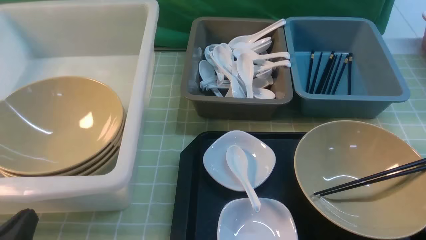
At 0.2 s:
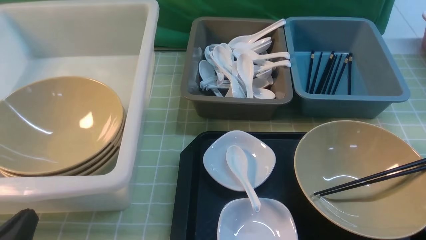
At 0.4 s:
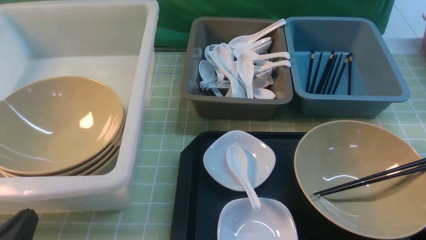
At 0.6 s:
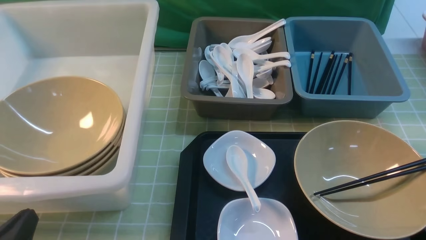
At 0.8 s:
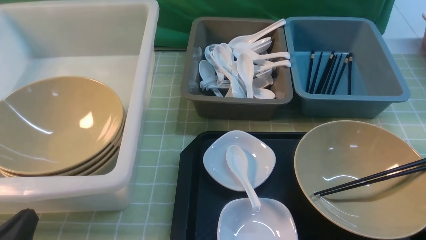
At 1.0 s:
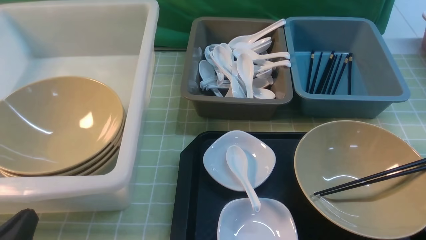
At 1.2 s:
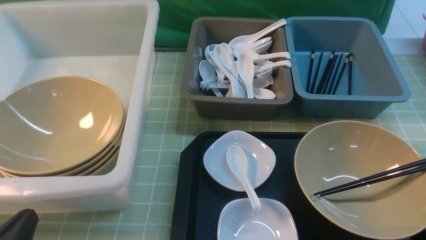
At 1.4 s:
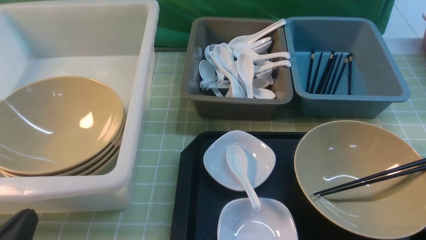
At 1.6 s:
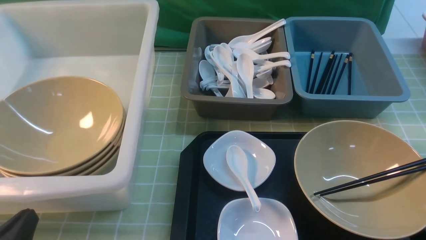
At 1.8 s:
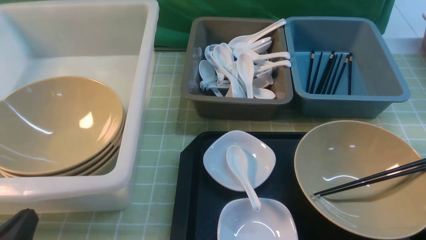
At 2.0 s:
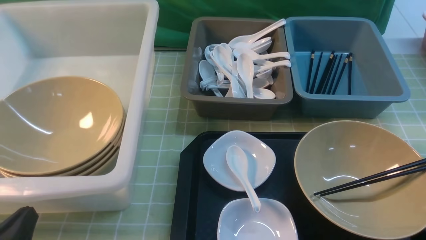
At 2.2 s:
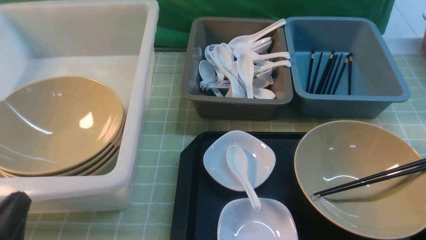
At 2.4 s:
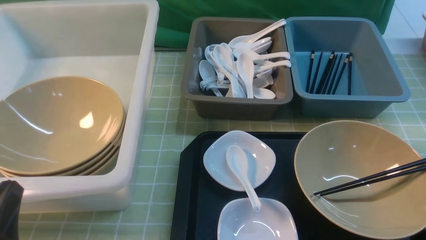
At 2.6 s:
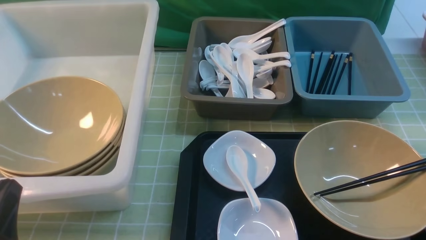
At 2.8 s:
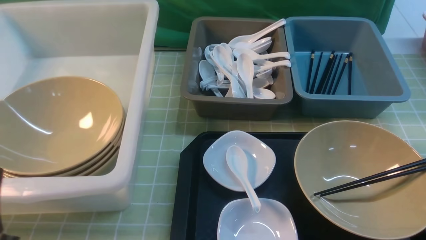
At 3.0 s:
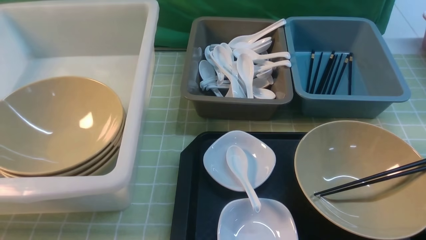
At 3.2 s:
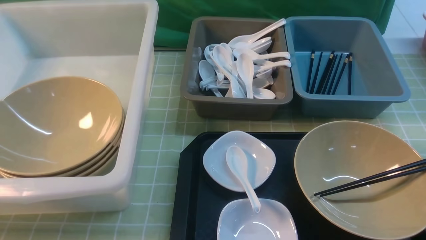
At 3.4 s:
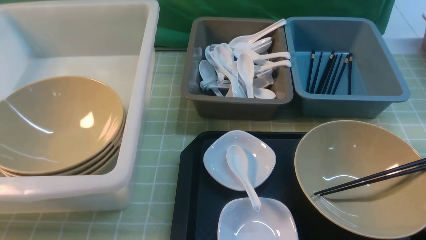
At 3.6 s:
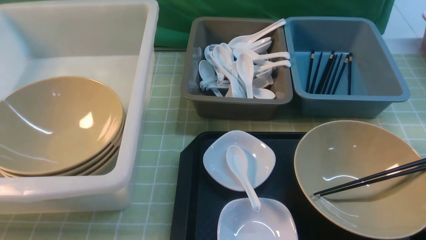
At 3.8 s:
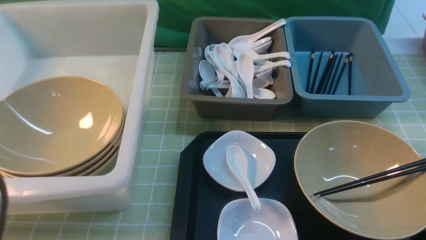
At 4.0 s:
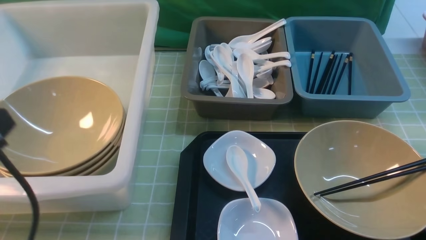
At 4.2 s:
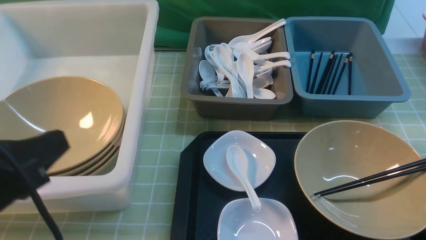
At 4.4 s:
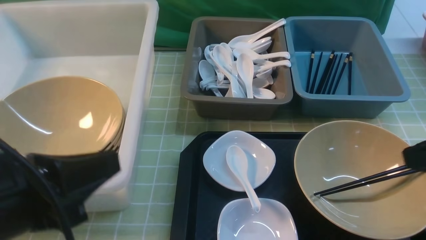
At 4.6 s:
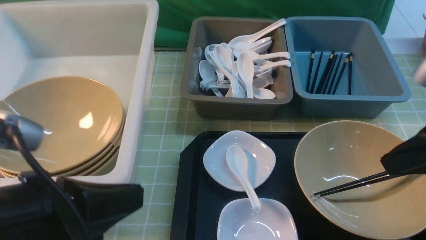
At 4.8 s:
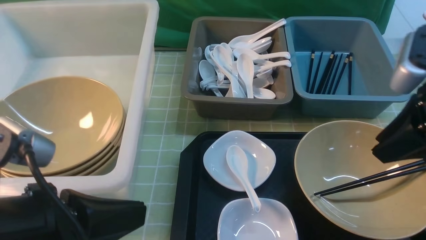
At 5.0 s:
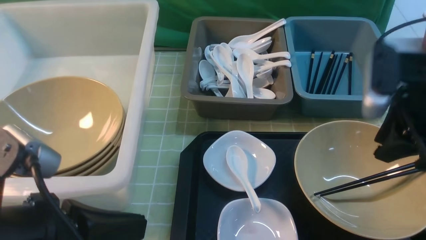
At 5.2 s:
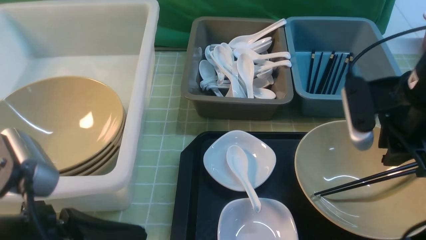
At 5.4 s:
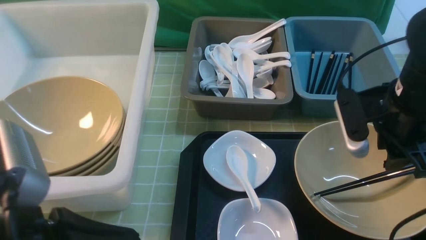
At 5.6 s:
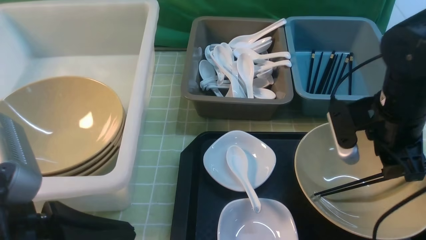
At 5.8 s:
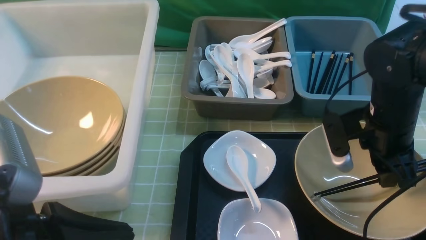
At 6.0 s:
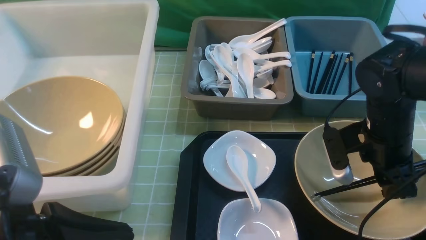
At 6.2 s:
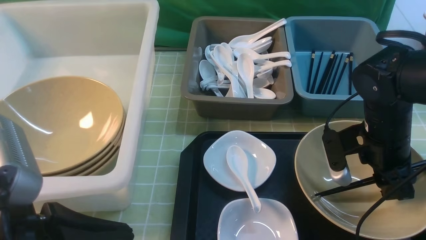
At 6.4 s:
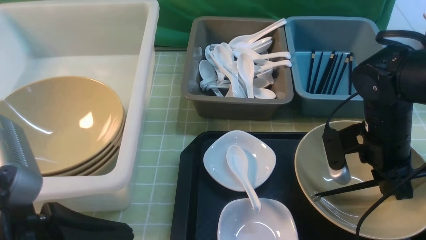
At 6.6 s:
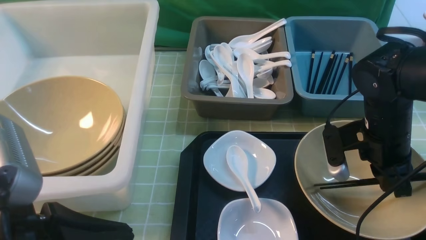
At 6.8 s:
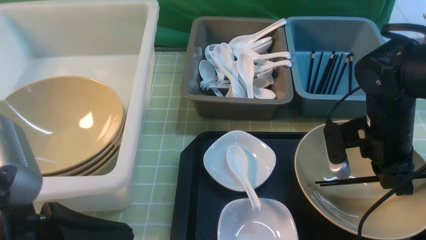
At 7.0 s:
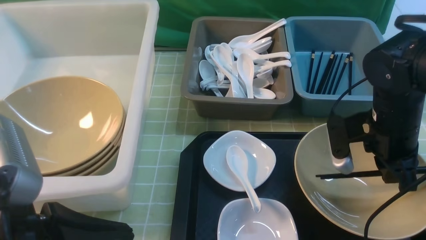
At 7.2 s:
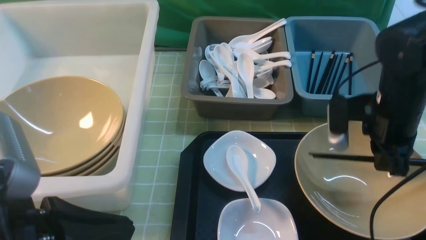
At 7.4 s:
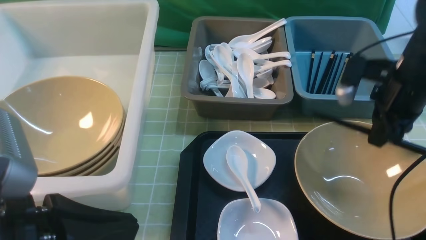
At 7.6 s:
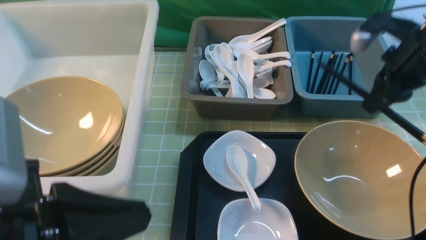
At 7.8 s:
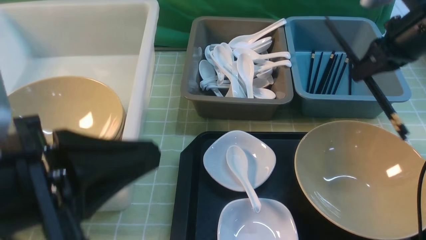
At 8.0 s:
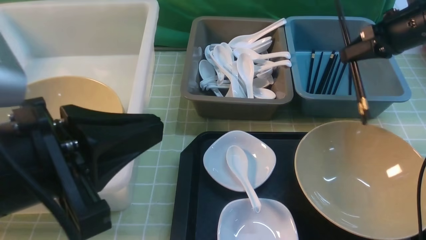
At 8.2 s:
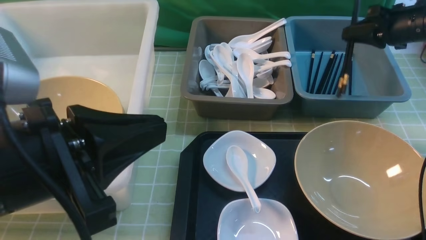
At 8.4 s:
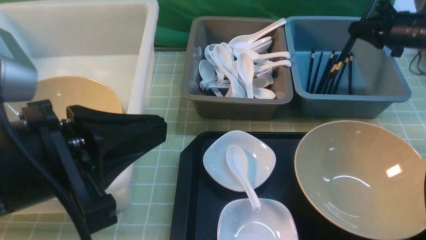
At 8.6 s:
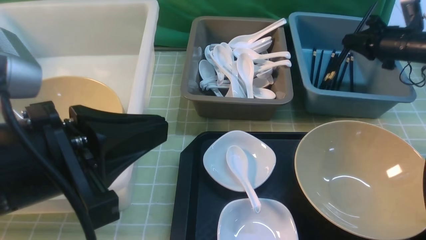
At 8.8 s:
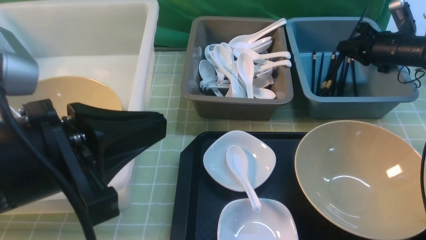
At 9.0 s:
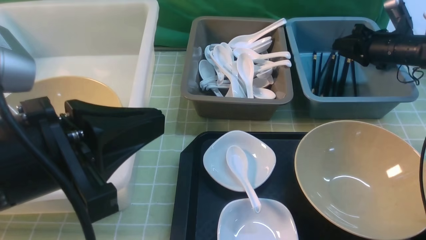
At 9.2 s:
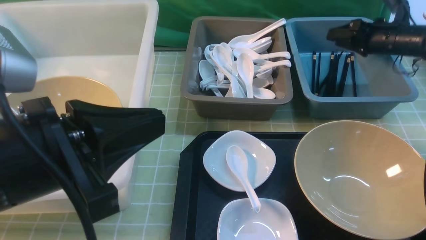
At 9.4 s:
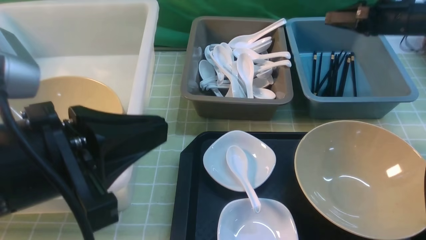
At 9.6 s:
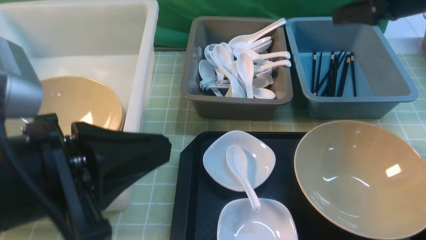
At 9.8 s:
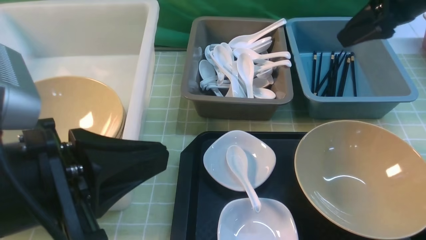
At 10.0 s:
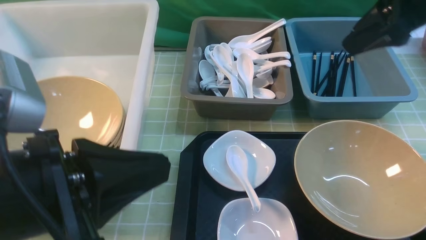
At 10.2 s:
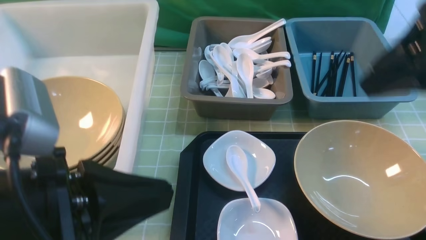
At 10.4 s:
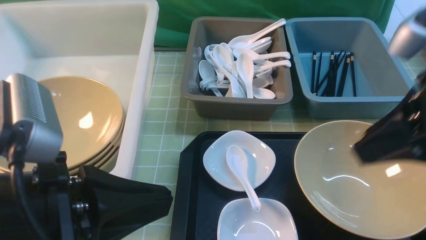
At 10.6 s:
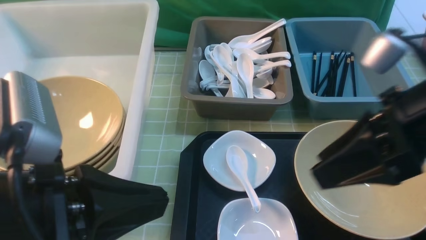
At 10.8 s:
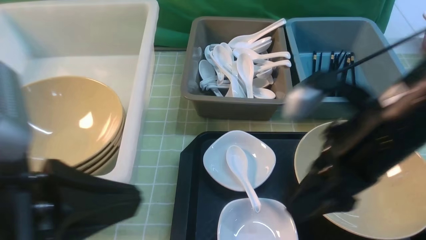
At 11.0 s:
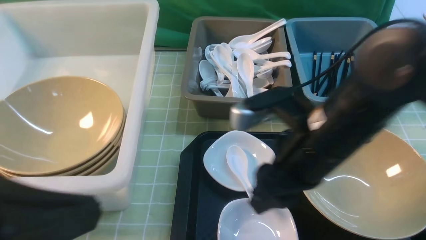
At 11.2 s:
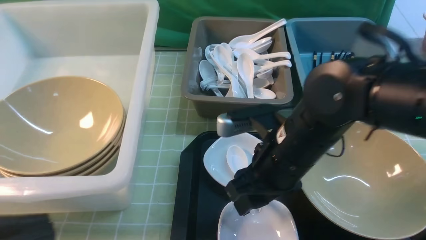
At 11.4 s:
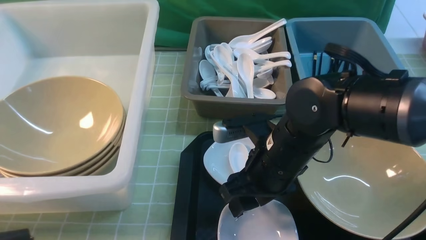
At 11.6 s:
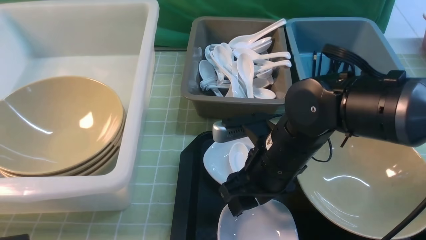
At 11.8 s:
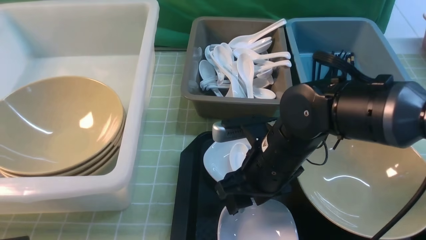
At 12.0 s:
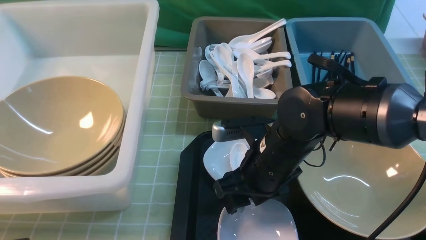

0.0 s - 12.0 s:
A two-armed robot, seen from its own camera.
Task of the whole recording: on green table put chopsticks spoon bowls plates into blue grey white boxes.
Step, 0.0 s - 7.8 s: use the right arm to grab the chopsticks.
Step, 8.0 s - 9.2 s: use the right arm to put the chopsticks into the small storage box on the right.
0.0 s - 1.6 s: Both grippers stay about where they are.
1.6 s - 3.0 s: The left gripper moves upward, roughly 10 cm.
3.0 s - 4.4 s: The left gripper heads upward, to the right and forward, covering some 10 cm.
4.4 s - 6.0 s: The right gripper heads downward, forward and to the left, covering about 20 cm.
6.0 s - 7.6 s: The right gripper is displaced upward, forward and to the right by about 15 cm, and closes its fingers.
7.6 s - 9.0 s: The right gripper goes roughly 20 cm forward, downward and to the right, and opens its fingers.
9.0 s - 10.4 s: The right gripper goes some 35 cm backward, upward and to the left.
10.4 s - 12.0 s: The right gripper moves downward and to the left, roughly 25 cm. The left gripper travels backward and to the left by approximately 10 cm.

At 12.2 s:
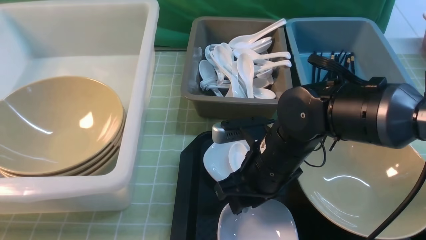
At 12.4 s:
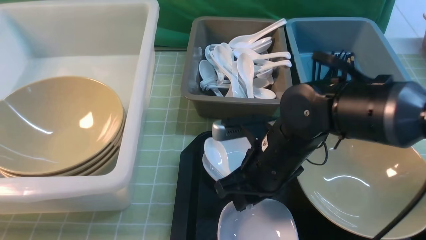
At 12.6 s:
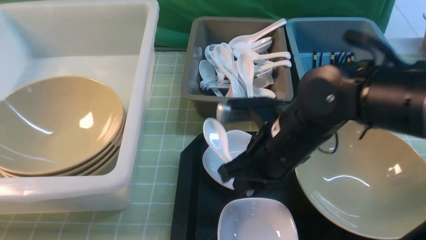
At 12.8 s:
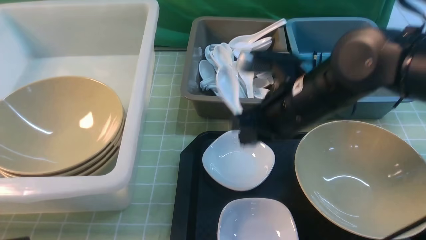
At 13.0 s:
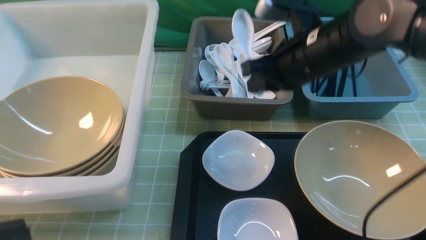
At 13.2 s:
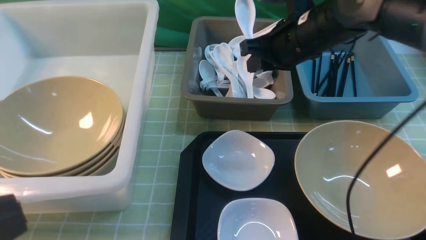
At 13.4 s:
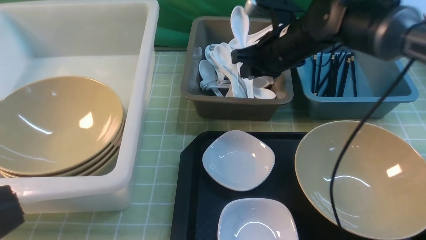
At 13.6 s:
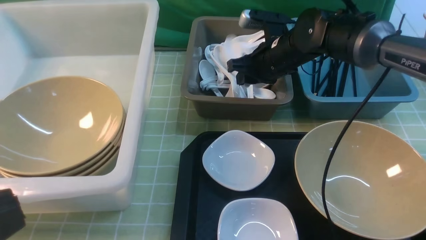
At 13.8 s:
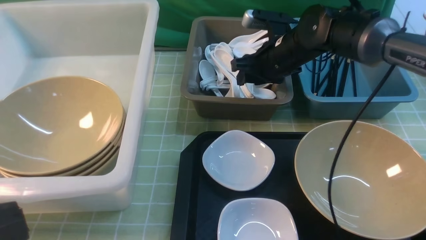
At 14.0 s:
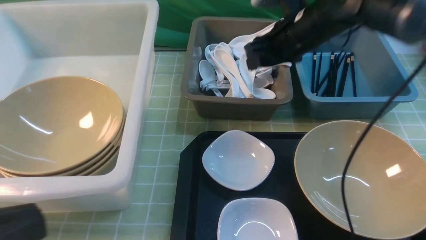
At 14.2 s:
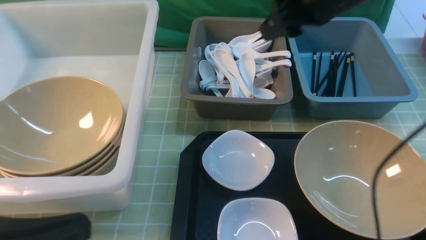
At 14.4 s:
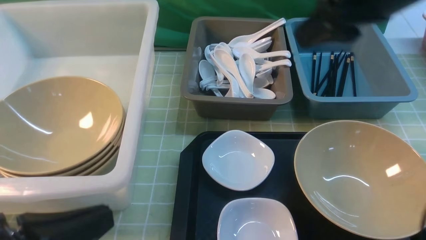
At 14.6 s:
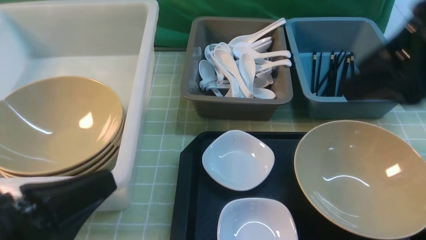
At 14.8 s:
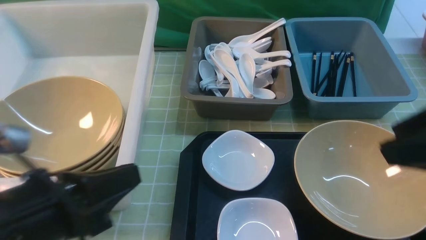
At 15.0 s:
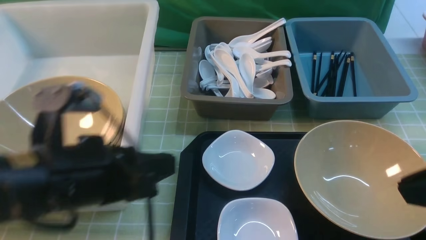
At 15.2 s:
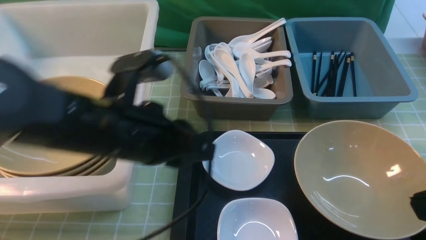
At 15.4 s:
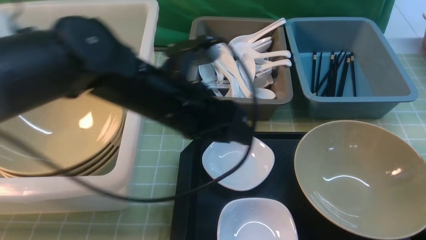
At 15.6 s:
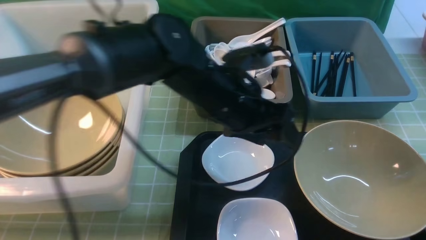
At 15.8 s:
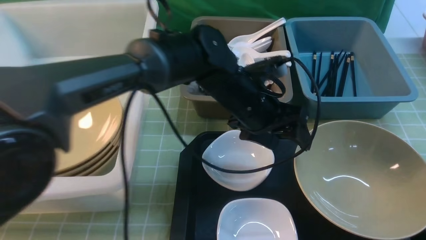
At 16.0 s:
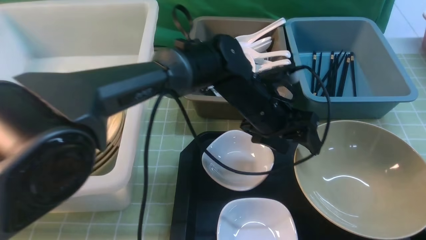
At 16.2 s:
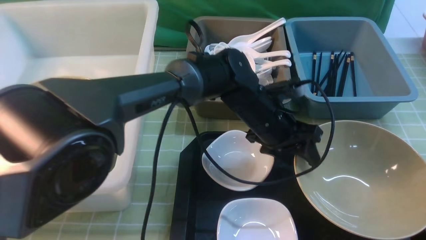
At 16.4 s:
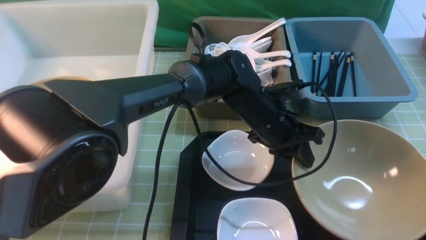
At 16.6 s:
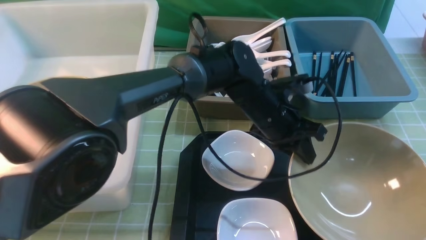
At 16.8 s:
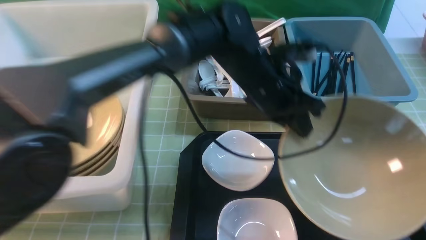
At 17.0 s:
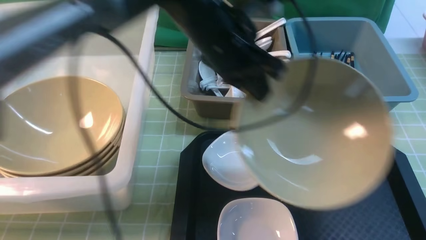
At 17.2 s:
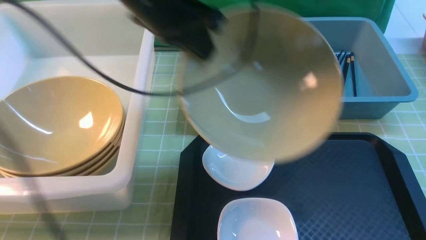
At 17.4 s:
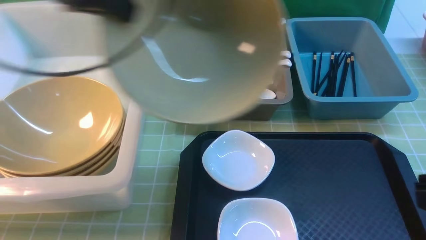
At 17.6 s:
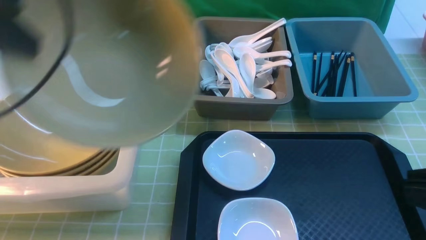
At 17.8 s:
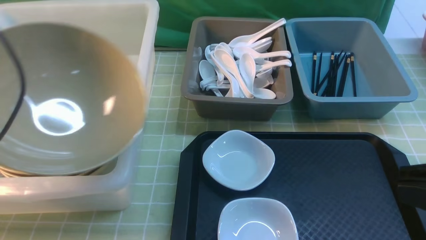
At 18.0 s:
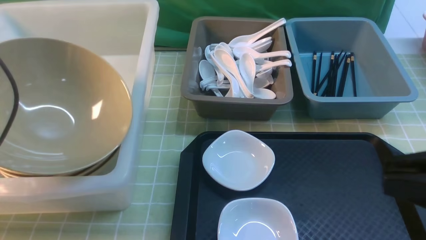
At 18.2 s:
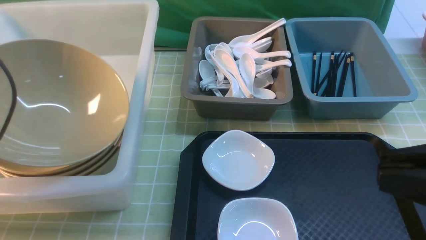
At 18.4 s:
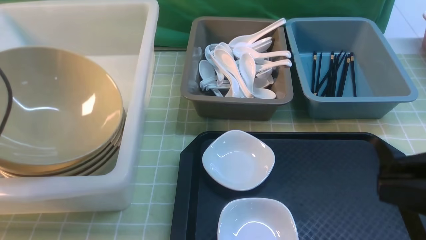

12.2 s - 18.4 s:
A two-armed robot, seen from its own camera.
Task of the whole recording: on green table put chopsticks spoon bowls plates into blue grey white boxes.
Step, 12.8 s - 14.2 s: use the right arm to put the soup spoon into the small storage box in the middle.
Step, 14.4 s - 16.8 s: use the left arm to grab the yellow noodle bowl on the left.
12.2 s - 13.8 s: The right gripper goes roughly 20 cm forward, and closes and opens again.
13.8 s - 15.4 s: The right gripper goes approximately 35 cm backward, and closes its fingers, while the left gripper travels forward and to the right by about 30 cm, and opens.
15.4 s - 16.8 s: The left gripper goes some 10 cm to the right and forward, and closes up.
16.8 s - 18.4 s: The right gripper shifts by approximately 5 cm. Meanwhile the left gripper is displaced to the left by some 40 cm.
